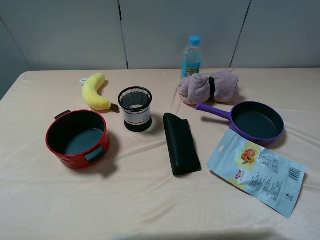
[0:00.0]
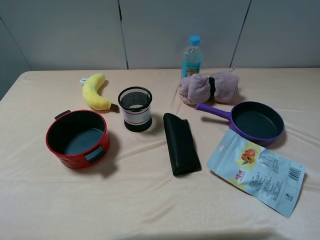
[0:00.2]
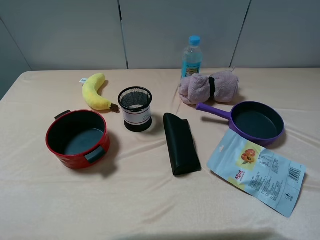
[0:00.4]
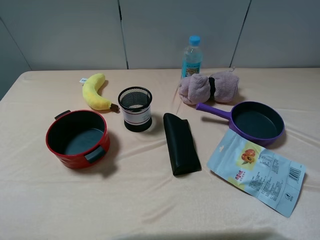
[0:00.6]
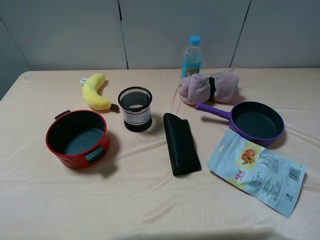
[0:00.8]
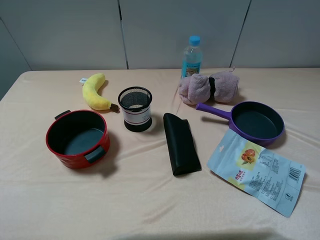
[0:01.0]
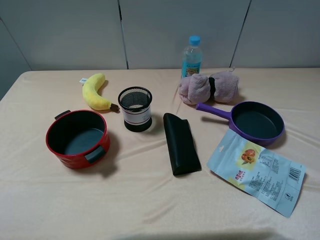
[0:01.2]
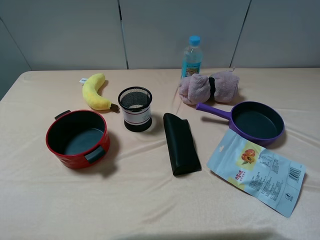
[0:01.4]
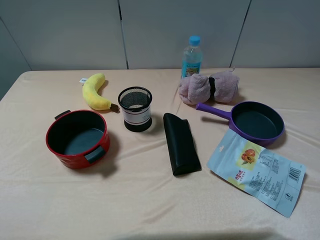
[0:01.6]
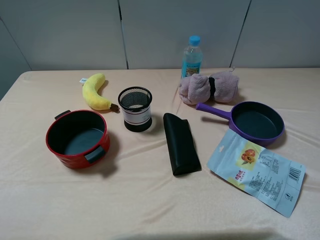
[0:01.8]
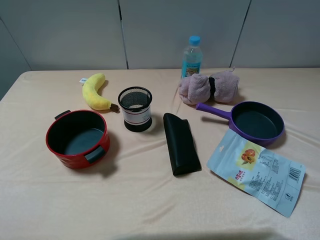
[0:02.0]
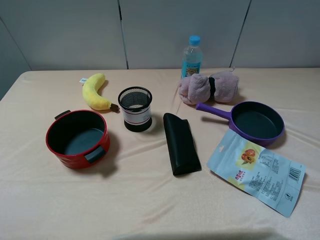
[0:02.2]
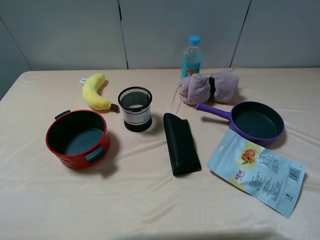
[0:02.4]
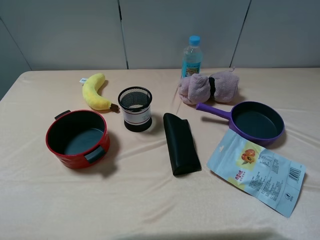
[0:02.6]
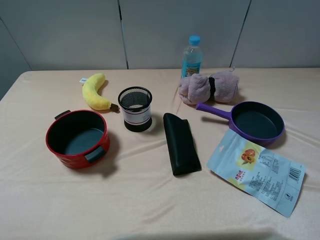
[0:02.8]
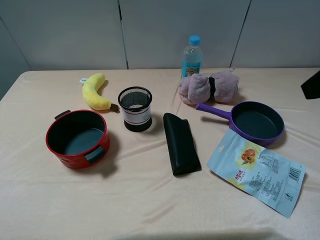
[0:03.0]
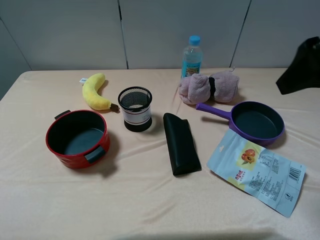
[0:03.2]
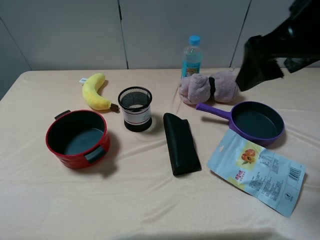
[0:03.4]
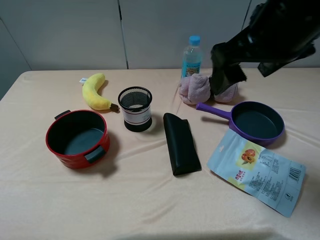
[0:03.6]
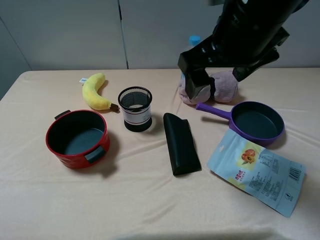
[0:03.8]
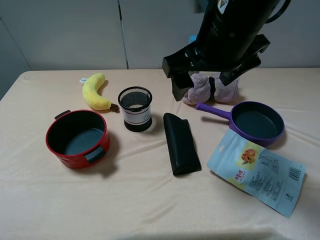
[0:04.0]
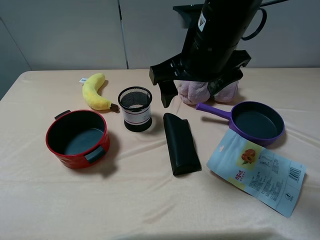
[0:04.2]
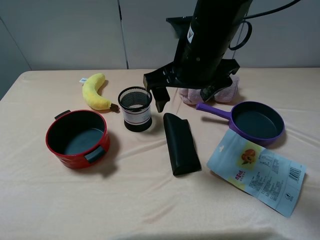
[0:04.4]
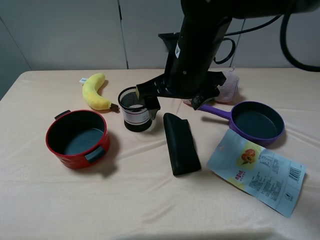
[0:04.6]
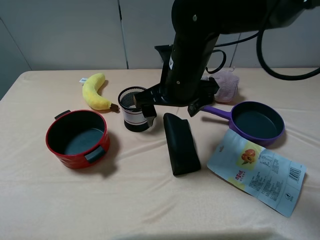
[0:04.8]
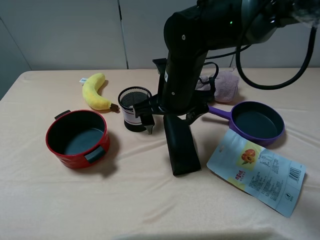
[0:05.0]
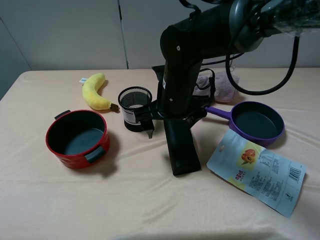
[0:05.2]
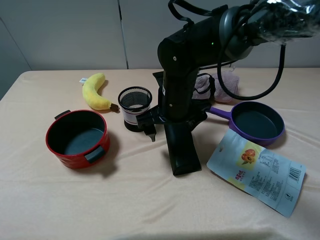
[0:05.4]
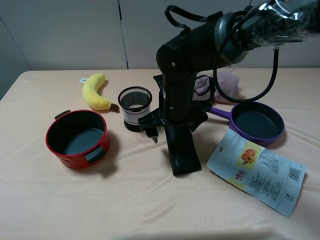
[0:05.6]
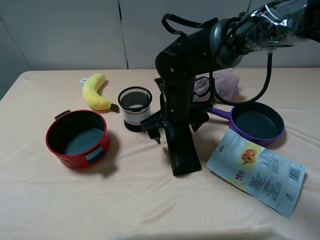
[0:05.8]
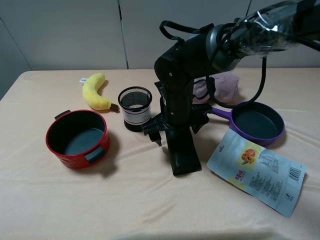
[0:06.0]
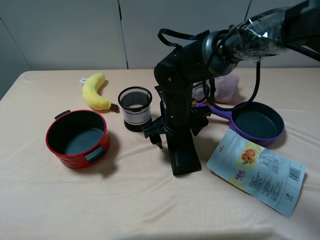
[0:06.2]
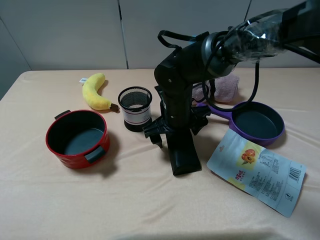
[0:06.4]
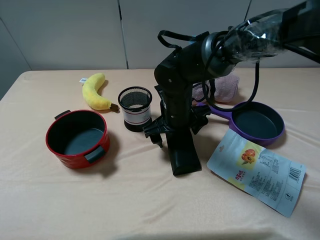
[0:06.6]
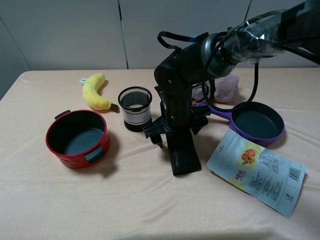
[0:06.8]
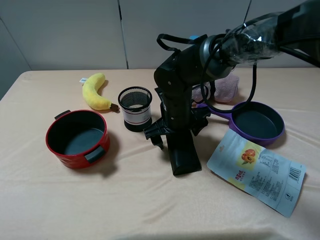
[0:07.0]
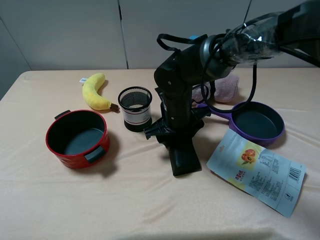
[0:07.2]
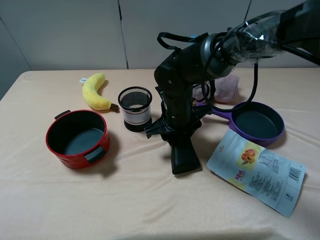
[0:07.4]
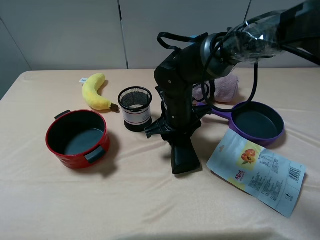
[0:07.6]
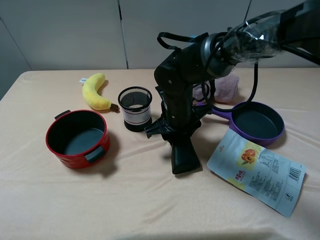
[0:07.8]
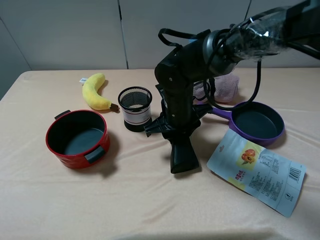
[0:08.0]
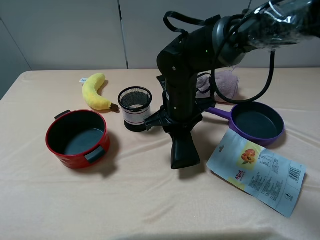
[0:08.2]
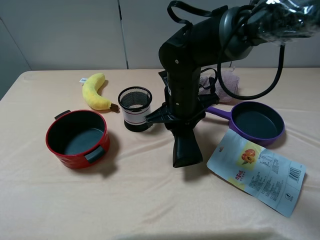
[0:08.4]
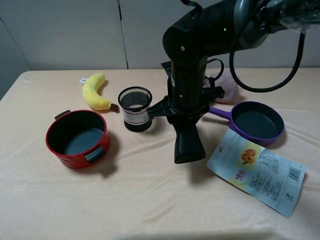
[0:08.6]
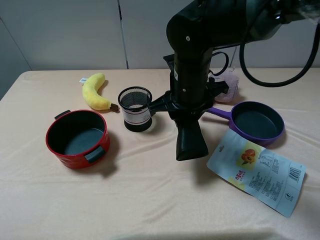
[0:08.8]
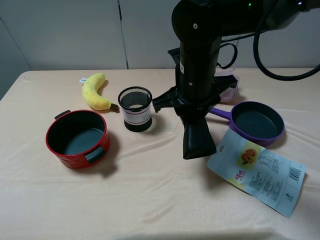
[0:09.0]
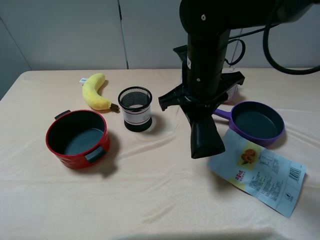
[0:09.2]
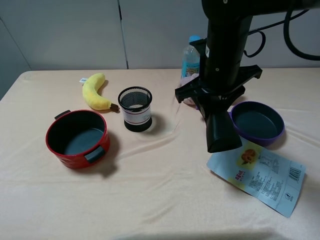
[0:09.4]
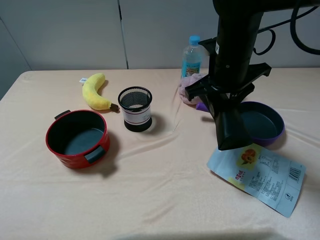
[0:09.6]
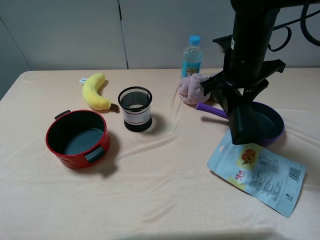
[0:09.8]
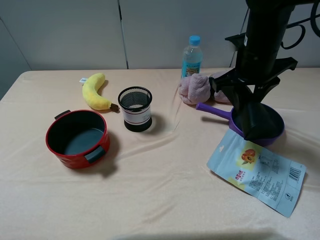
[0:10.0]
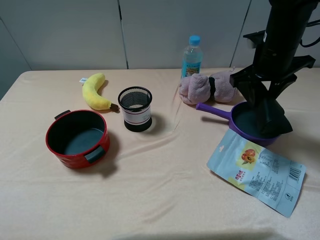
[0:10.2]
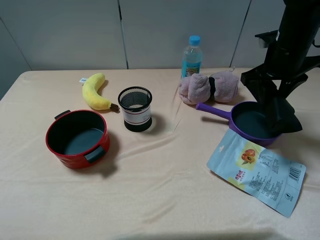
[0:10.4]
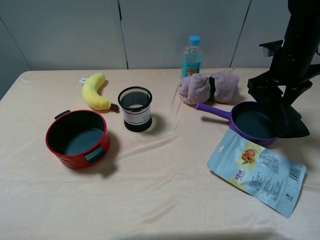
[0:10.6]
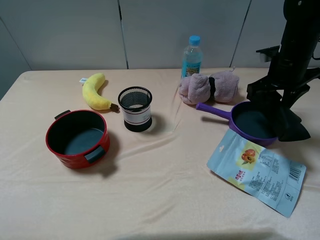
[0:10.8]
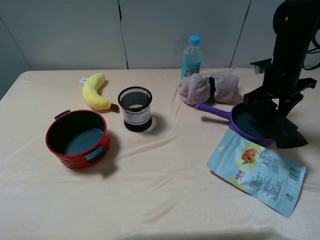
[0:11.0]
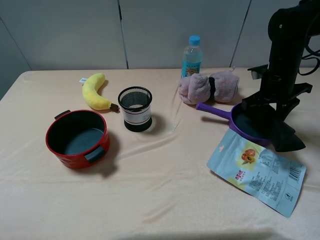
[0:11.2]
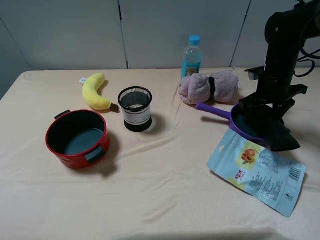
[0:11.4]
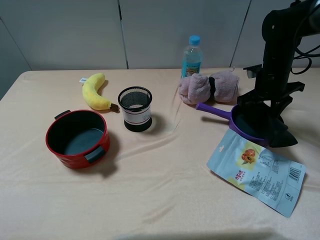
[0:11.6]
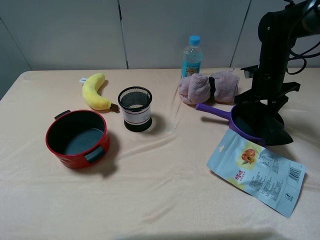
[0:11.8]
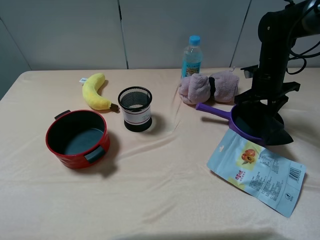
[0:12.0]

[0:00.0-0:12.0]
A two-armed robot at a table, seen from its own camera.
Task of the whole recording: pick up an item with a gripper and place it in a random container on the table.
Step, 0:00.0 to 0:07.6: Grasp the eyeglass case with the right gripper.
0:00.0 to 0:01.6: The two grippers keep their place.
0:03.0 to 0:04.4: The right gripper goes about 25 cm to the left, downward and forward.
0:04.4 to 0:06.0: The right gripper moves downward, some 15 cm.
0:06.0 to 0:07.6: The right gripper closes up.
0:07.6 to 0:09.0: The right gripper goes some 10 cm upward.
0:09.0 to 0:10.4: The right gripper travels to the right and forward by roughly 20 cm.
0:10.4 to 0:12.0: The right gripper moves downward, about 10 cm.

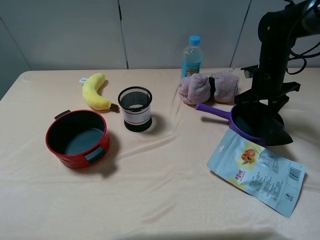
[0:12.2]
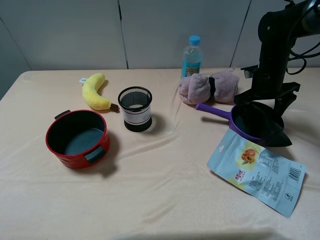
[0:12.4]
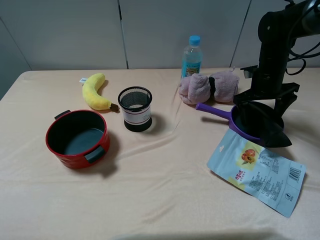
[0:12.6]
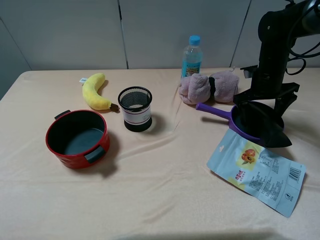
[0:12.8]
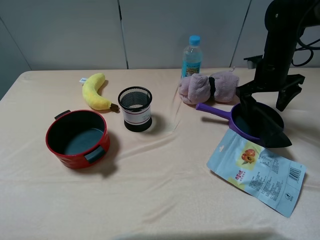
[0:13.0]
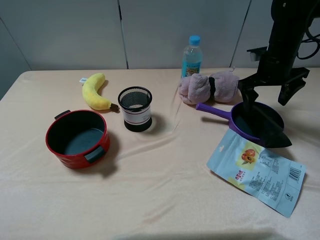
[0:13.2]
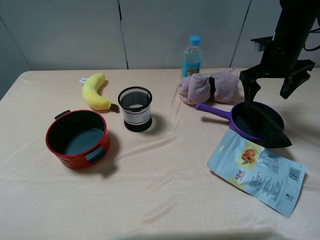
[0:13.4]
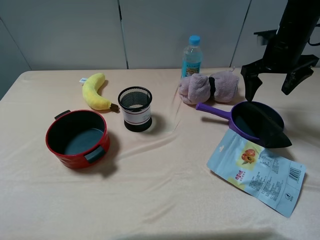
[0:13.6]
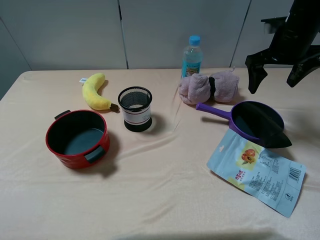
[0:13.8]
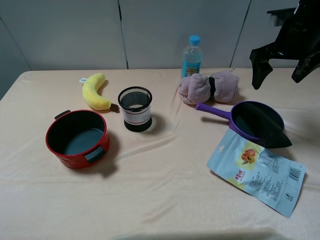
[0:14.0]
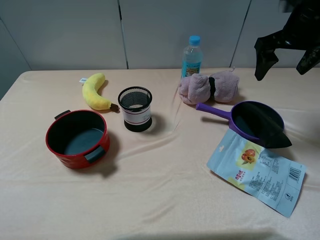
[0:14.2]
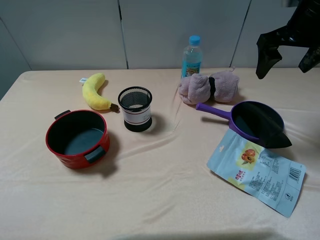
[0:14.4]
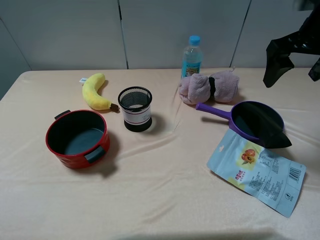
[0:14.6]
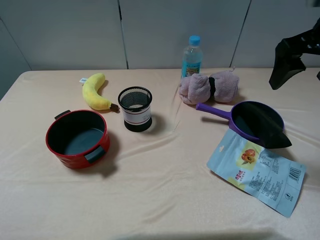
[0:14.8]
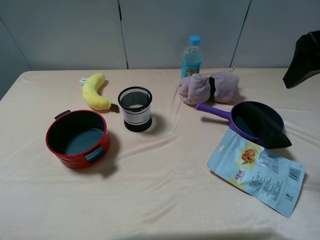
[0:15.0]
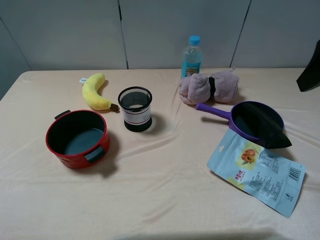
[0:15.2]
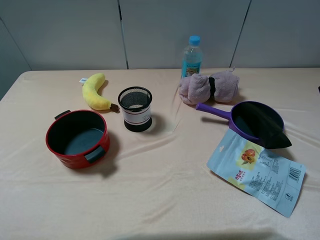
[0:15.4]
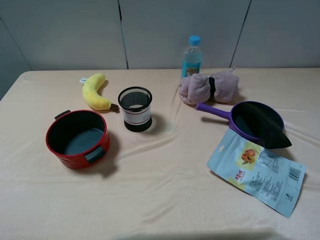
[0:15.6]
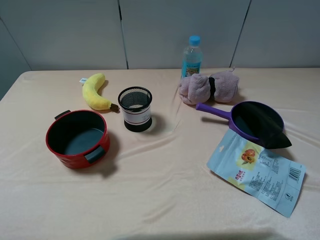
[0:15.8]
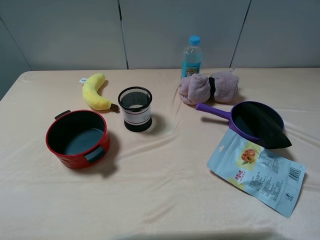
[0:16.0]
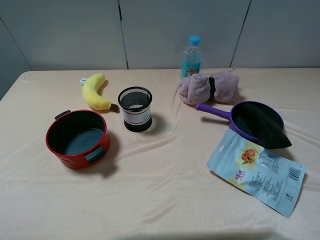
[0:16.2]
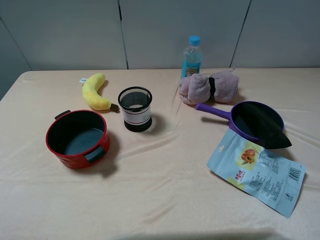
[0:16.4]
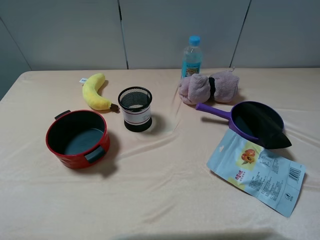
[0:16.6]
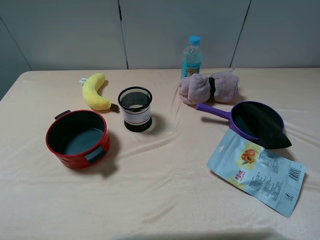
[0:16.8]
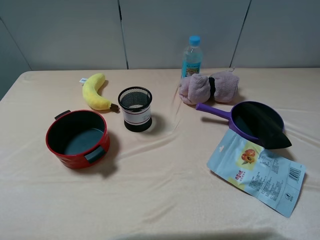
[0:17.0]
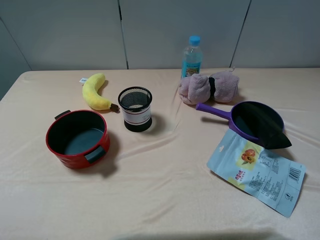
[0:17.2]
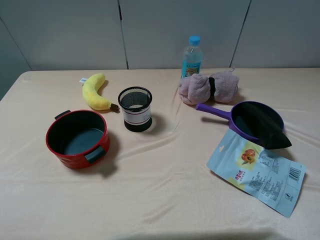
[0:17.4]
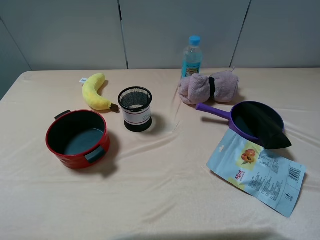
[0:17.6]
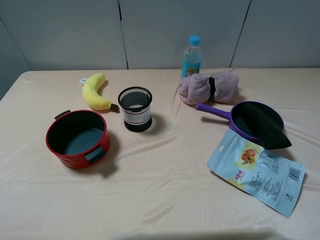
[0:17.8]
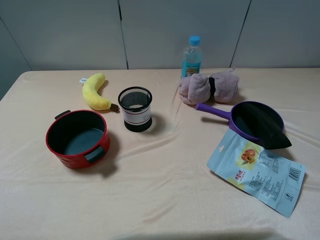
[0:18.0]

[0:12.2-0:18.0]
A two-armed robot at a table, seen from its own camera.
Task of the whole recording: pick up an item with a gripper and place it in a random container on the table.
0:12.2 to 0:13.6: The right gripper moves upward, approximately 10 cm, and opens.
0:13.6 to 0:15.0: The right gripper moves backward and upward, some 20 cm.
0:15.0 to 0:16.6: The right gripper heads backward, covering roughly 20 cm.
